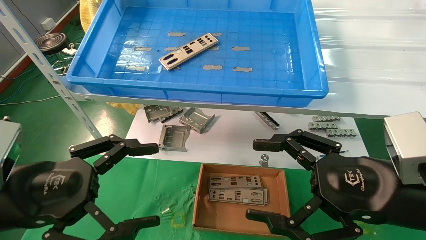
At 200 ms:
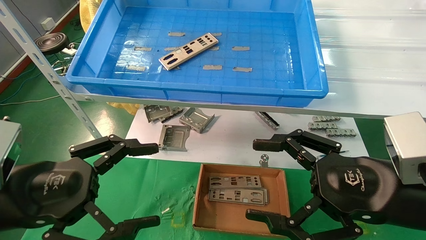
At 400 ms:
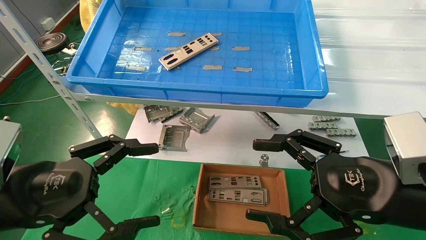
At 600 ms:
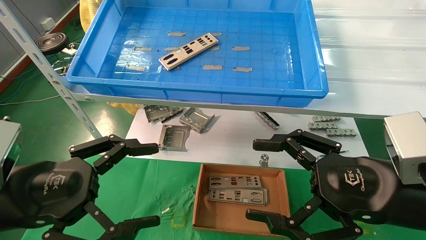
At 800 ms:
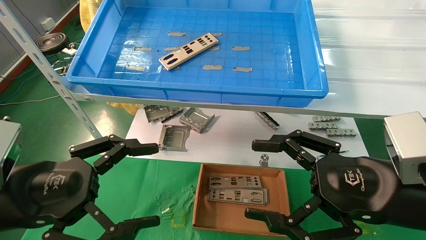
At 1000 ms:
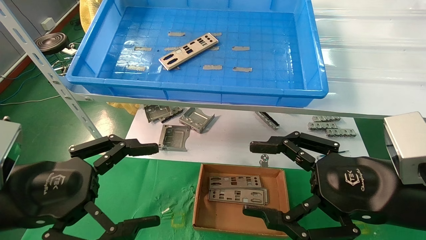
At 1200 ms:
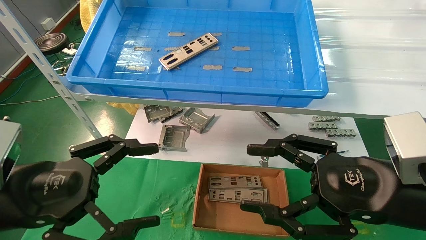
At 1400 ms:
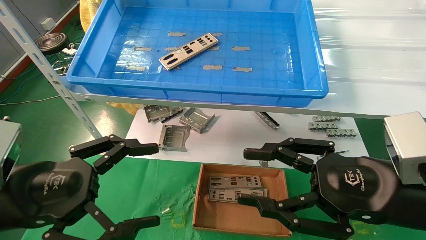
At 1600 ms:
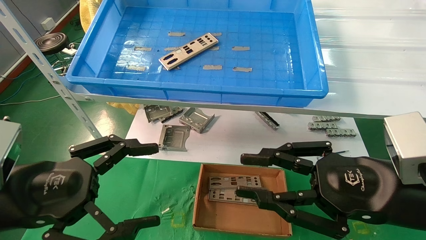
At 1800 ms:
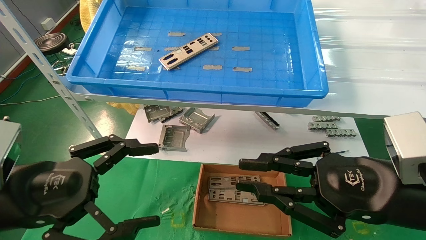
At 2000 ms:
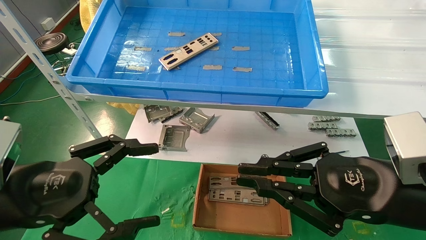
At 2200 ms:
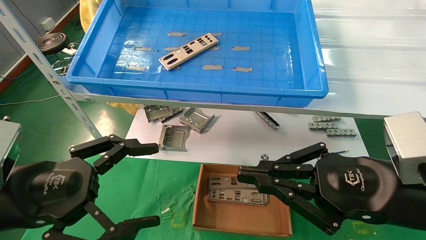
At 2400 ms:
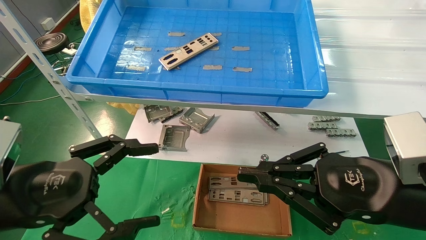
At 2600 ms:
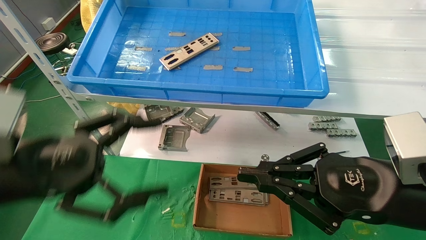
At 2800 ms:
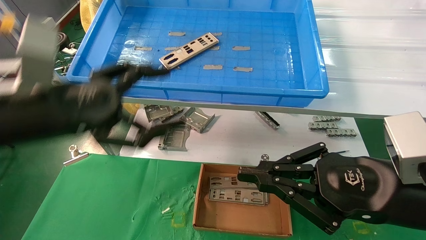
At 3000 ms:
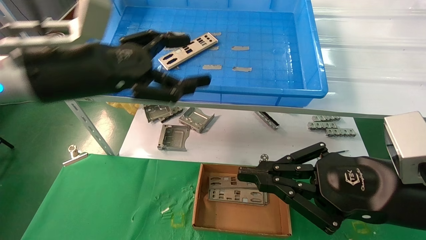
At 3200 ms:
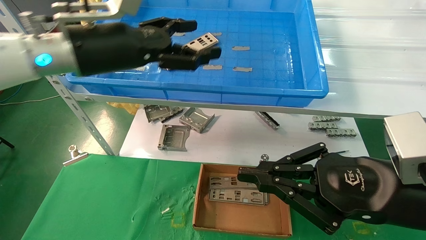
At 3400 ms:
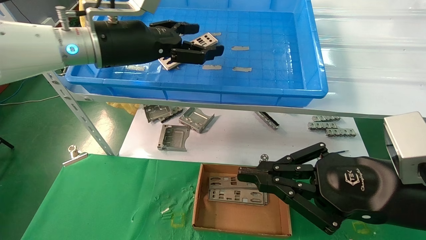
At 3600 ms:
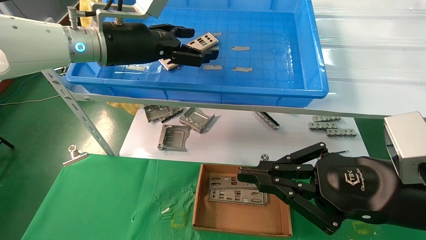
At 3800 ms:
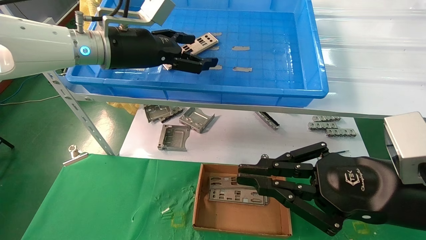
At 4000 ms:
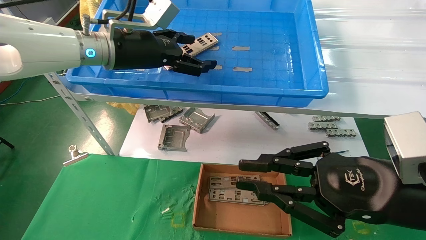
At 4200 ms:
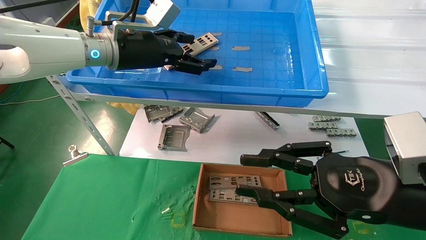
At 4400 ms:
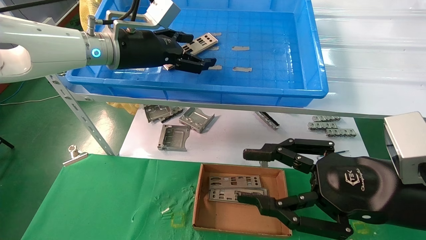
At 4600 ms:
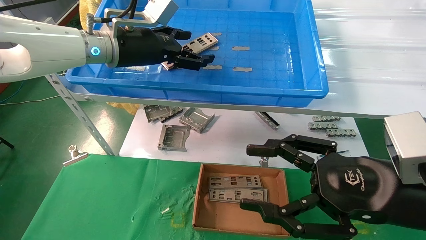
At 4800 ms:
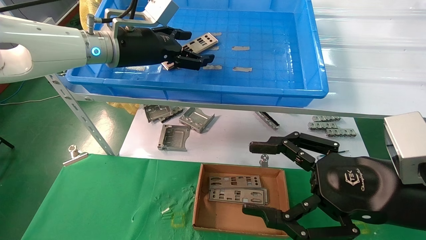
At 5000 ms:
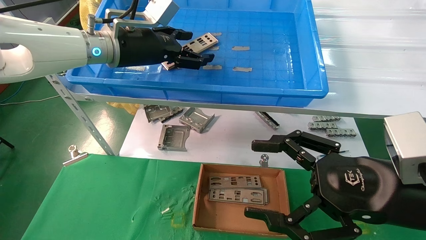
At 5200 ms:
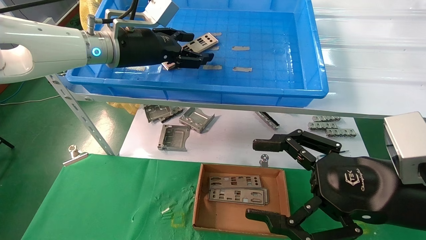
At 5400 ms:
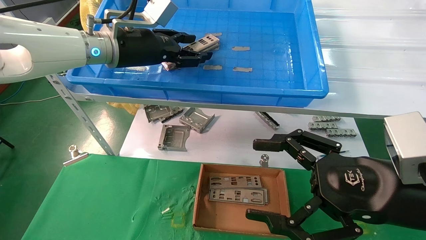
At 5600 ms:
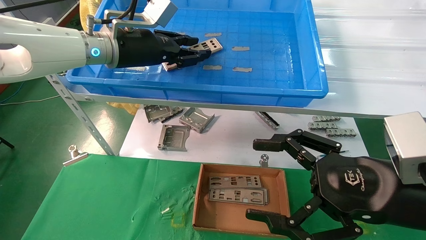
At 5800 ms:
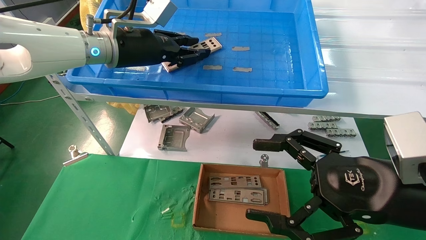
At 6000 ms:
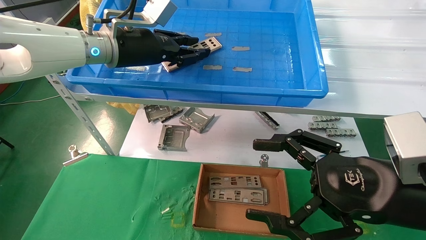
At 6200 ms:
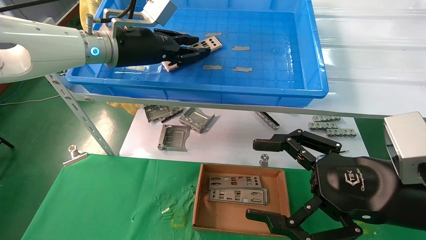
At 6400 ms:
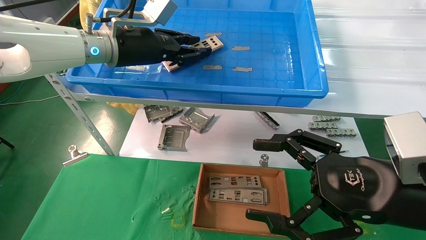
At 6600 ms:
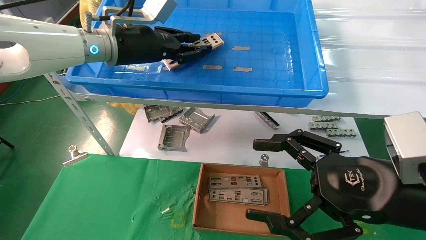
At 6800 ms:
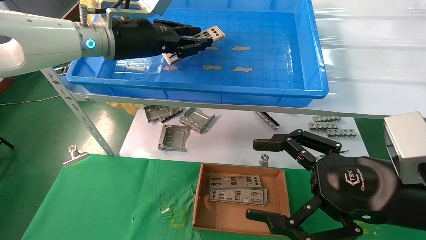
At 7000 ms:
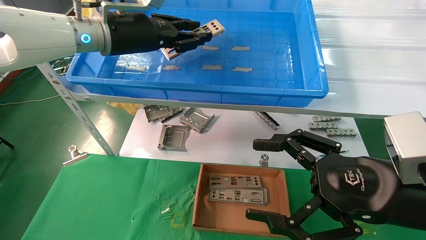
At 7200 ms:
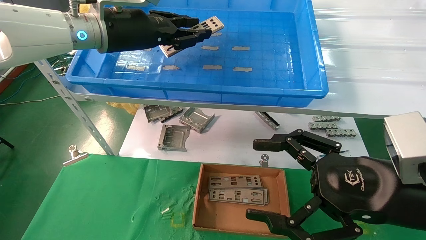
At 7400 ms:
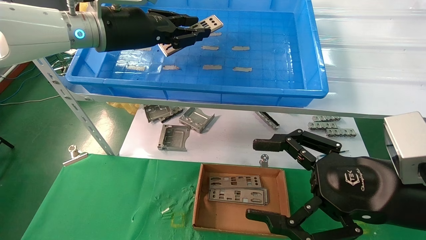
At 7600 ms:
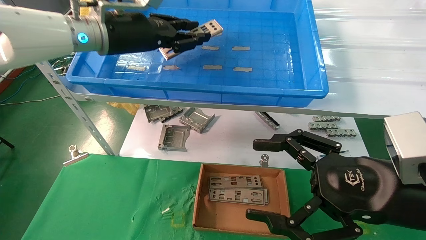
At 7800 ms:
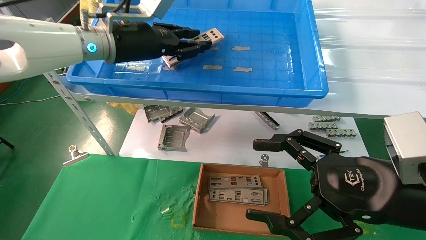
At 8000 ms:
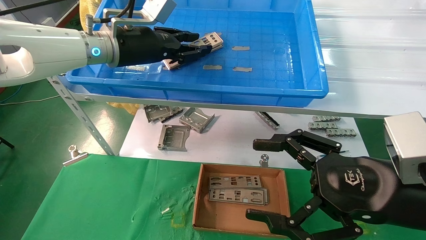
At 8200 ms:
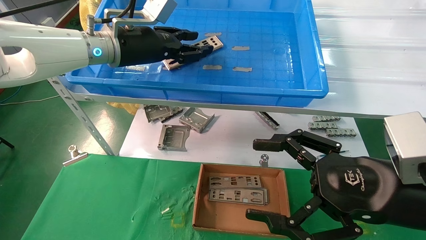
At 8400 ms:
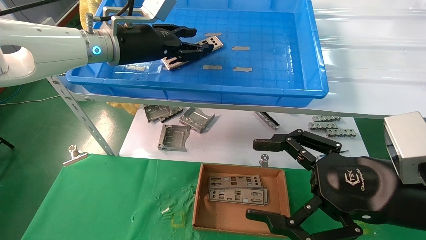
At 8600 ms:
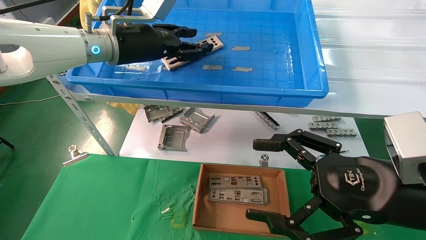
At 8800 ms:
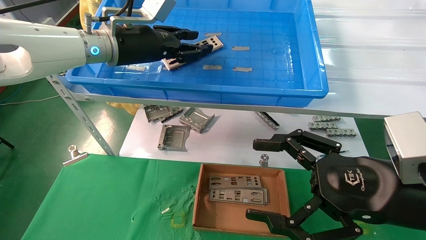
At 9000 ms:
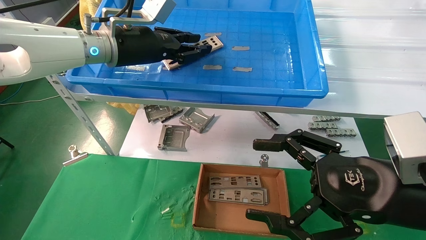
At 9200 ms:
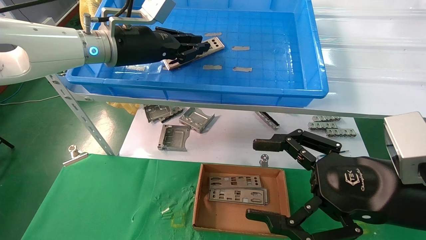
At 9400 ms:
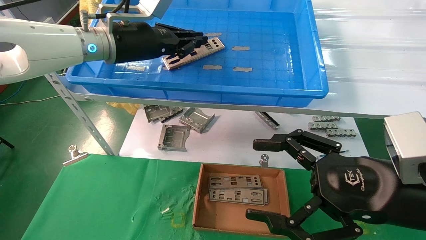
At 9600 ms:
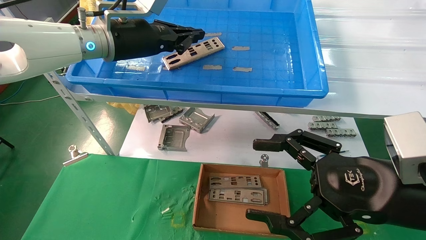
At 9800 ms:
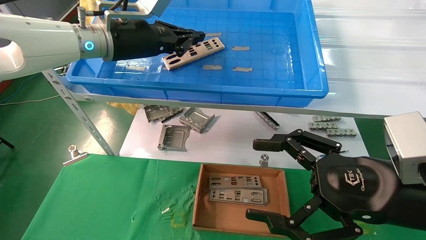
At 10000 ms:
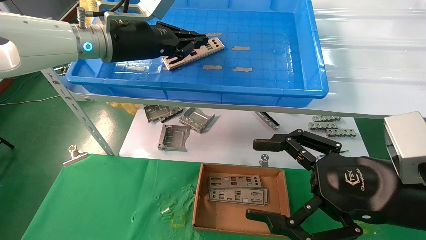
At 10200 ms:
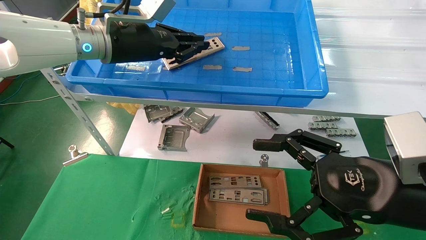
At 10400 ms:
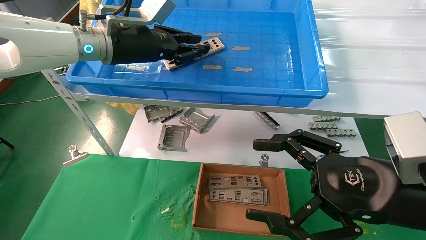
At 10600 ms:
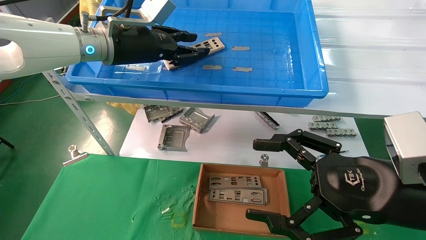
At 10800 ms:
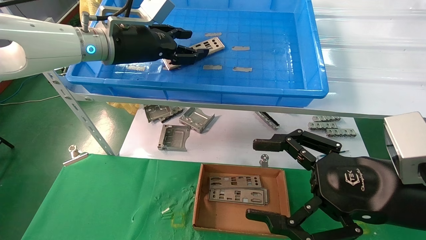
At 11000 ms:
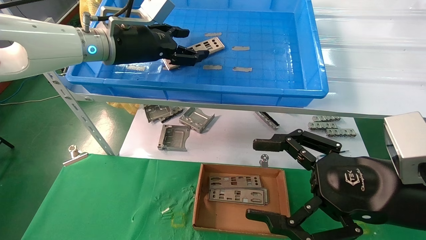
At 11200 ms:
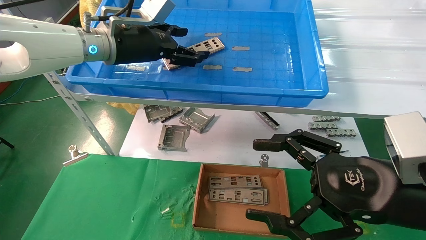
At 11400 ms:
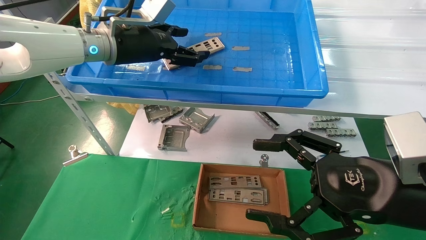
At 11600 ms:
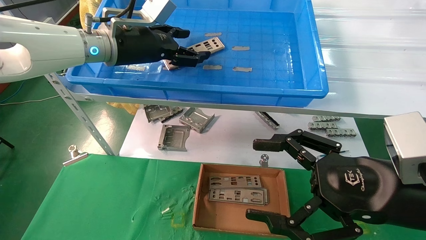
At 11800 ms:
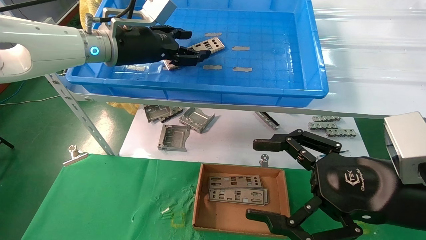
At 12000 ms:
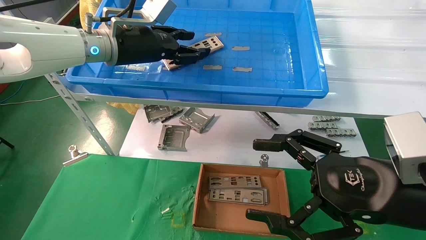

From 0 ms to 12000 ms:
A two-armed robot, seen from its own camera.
Task of the whole recording: pick up the parts on the tray and put them in the cardboard box.
From 0 ms to 1600 ms: The right gripper closes its fingers.
From 1600 ms to 3000 ms: The right gripper closes; the left gripper shifts roughly 15 cm upward, forward and to the right.
From 3000 ms to 4400 ms: The right gripper opens. Meanwhile the left gripper shifts approximately 10 cm forward.
From 4400 ms to 6000 ms: The right gripper opens its fingers. Meanwhile the left gripper closes.
From 6000 ms to 9000 ms: The grippers move only a little.
From 9000 ms to 10400 ms: The two grippers keep their place.
From 10400 ms to 12000 ms: The left gripper opens its fingers.

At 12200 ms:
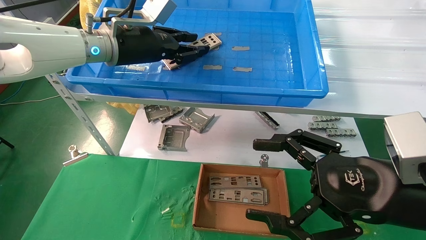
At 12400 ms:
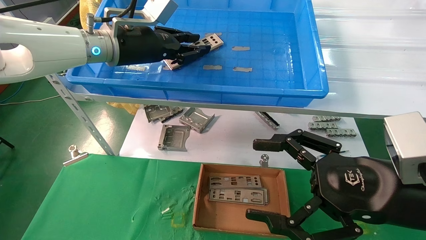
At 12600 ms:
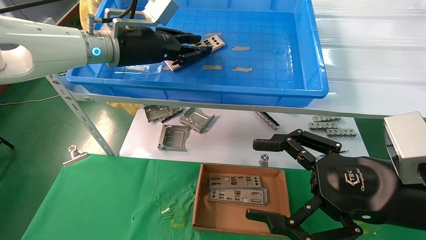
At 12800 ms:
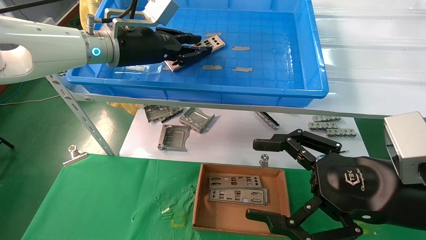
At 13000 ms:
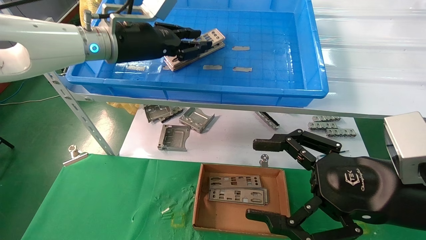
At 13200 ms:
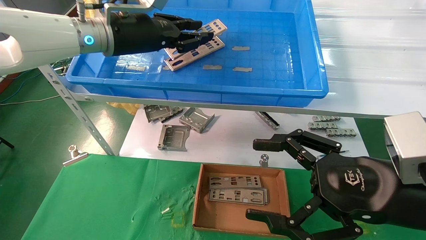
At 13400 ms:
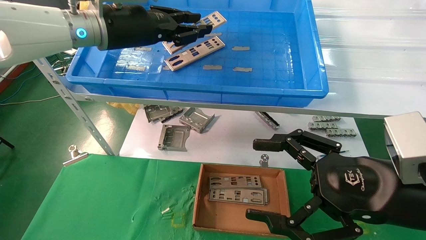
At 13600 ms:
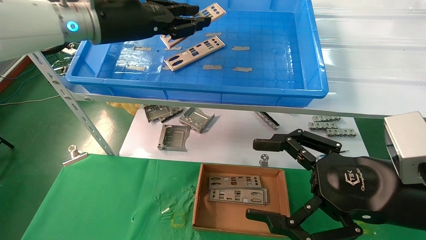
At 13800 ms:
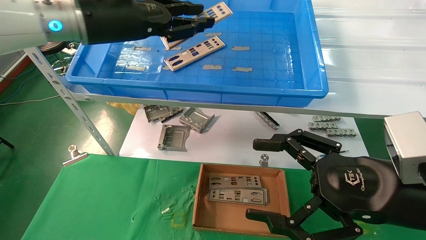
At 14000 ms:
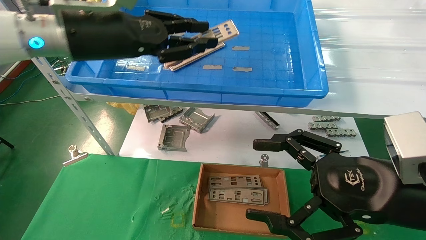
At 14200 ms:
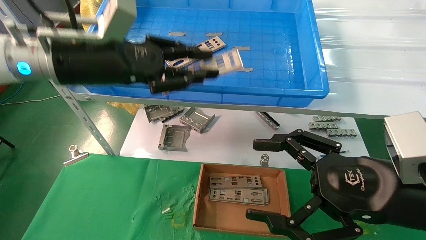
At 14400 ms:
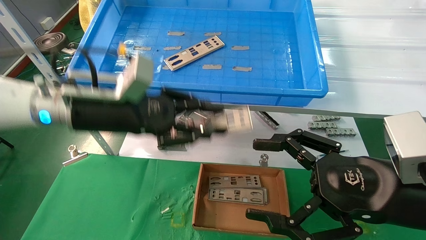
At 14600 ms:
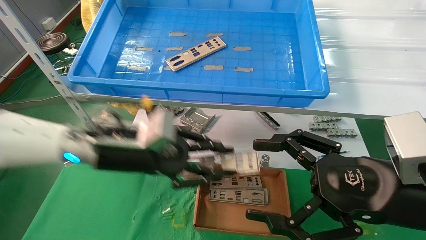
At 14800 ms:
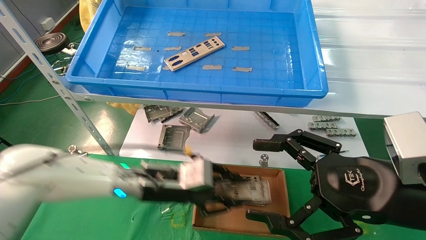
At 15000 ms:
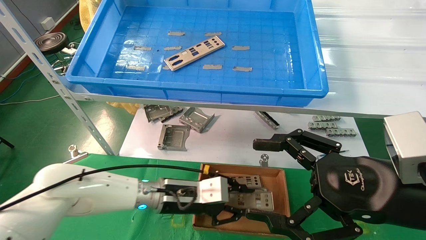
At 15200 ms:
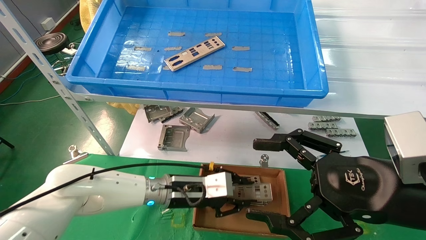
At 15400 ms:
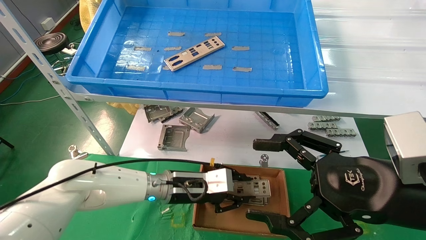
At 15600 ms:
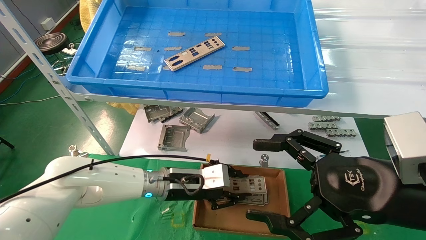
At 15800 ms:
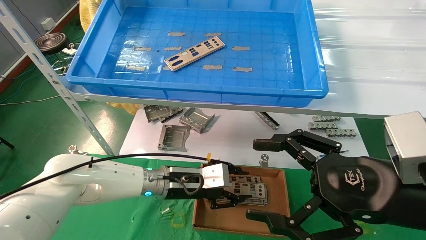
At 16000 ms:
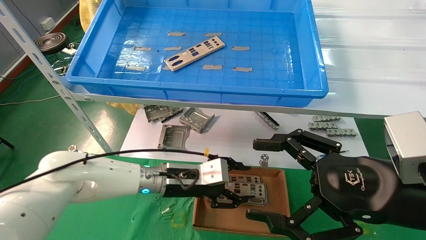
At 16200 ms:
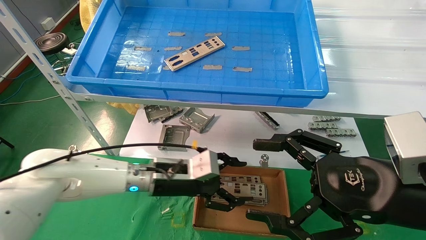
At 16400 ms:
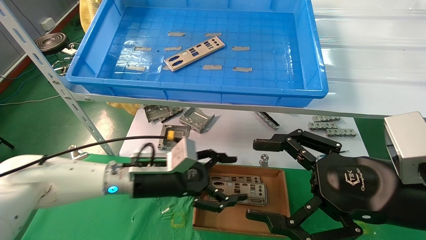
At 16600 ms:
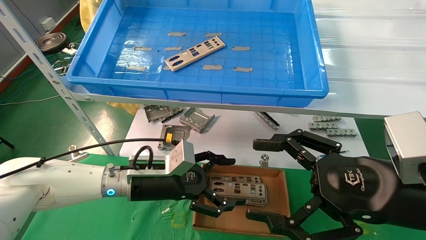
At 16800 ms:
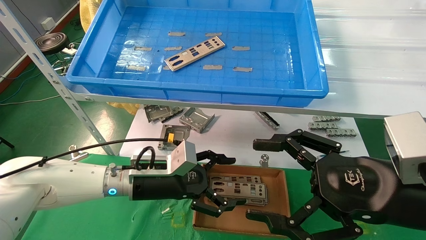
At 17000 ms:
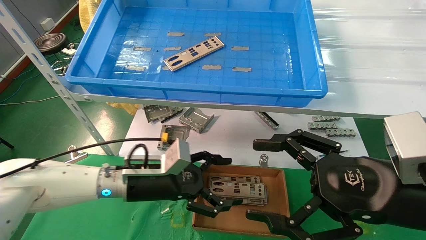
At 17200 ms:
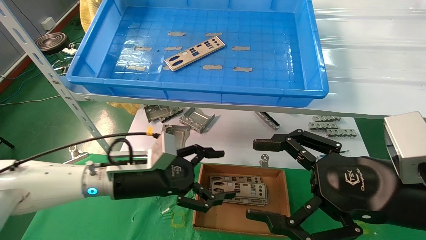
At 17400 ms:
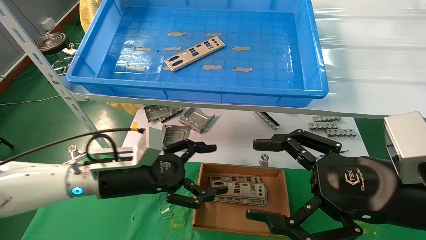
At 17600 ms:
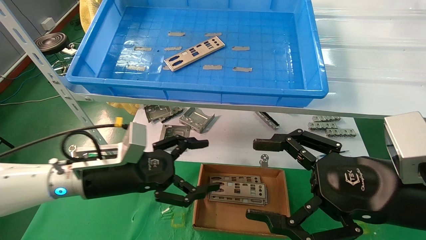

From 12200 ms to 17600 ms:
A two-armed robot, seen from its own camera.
Task of the whole recording: pick up the parts on the tray and put them in the cardboard box.
Step, from 13000 ms to 15800 ms: Place the IO bracket into the ingredient slot.
From 12200 ms to 13600 ms: The left gripper shifts by about 5 cm.
From 13600 ms to 15000 ms: The left gripper travels downward by approximately 30 cm.
From 15000 ms to 16200 ms: The left gripper opens.
From 16200 ms to 17600 ms: The left gripper shifts some 10 cm to the left and backward.
